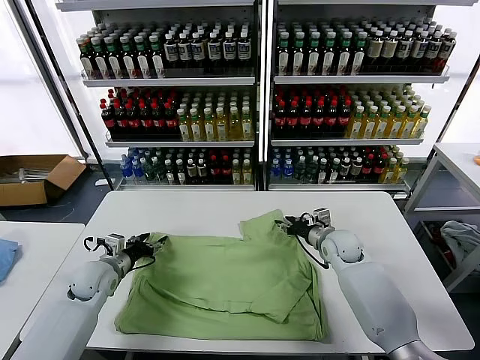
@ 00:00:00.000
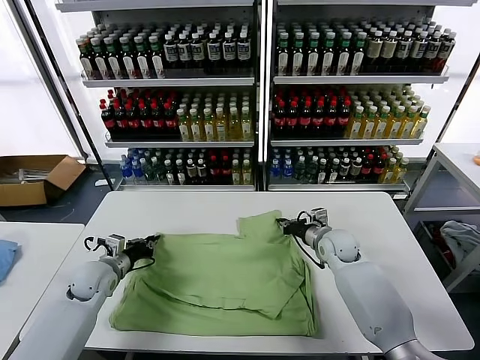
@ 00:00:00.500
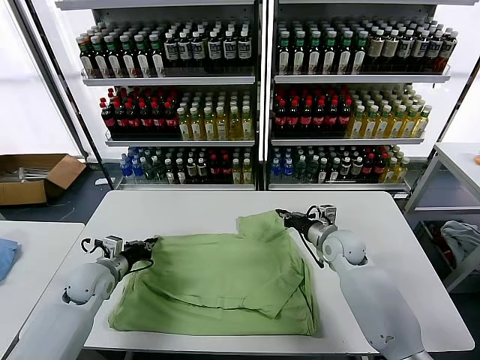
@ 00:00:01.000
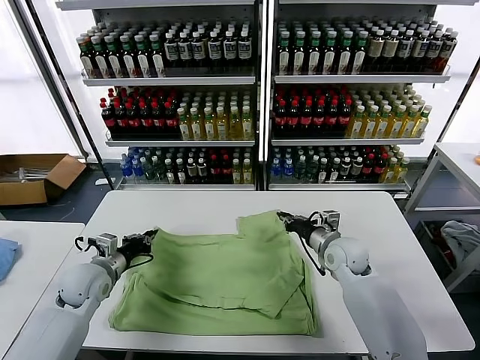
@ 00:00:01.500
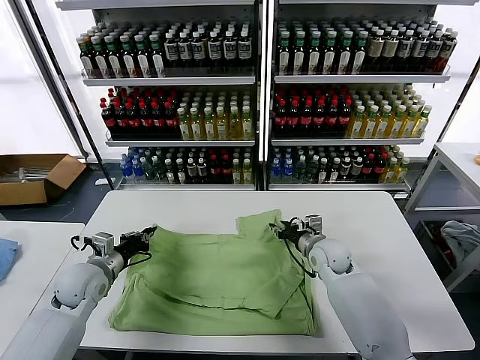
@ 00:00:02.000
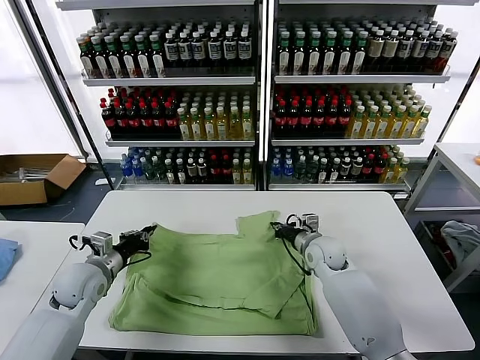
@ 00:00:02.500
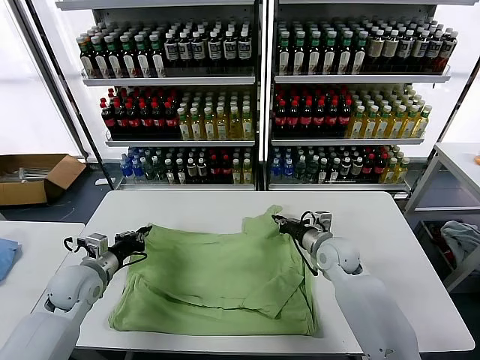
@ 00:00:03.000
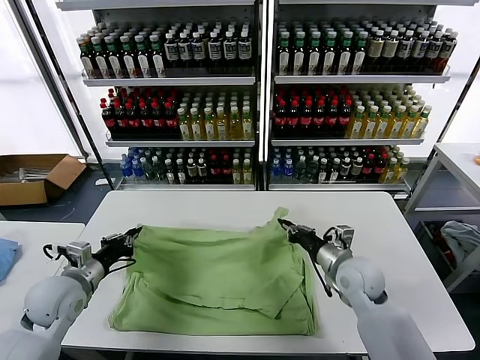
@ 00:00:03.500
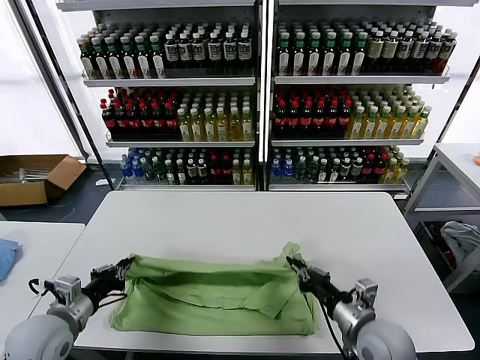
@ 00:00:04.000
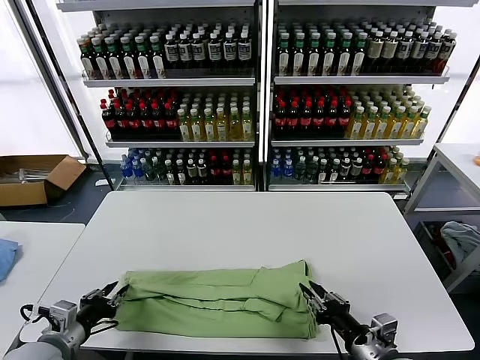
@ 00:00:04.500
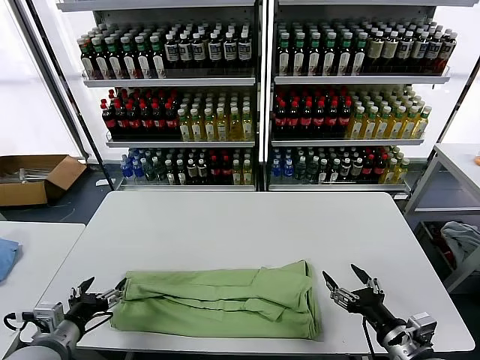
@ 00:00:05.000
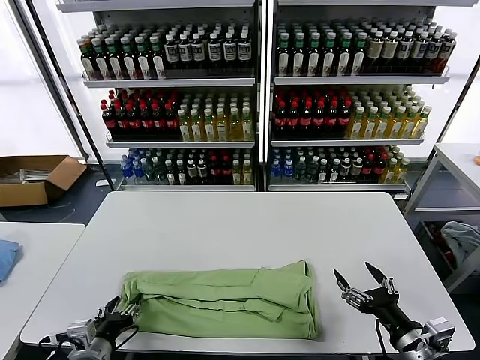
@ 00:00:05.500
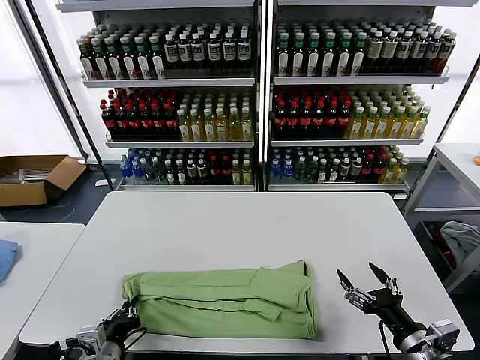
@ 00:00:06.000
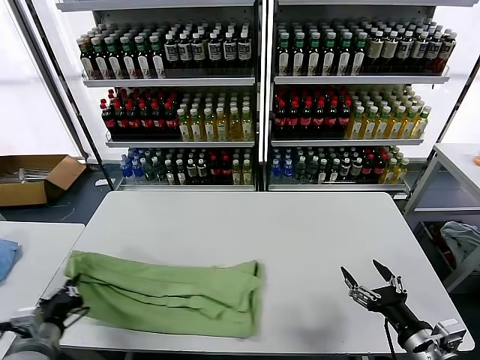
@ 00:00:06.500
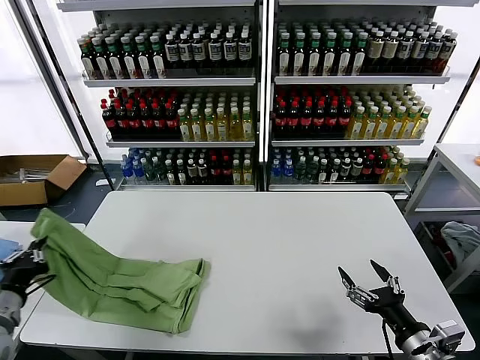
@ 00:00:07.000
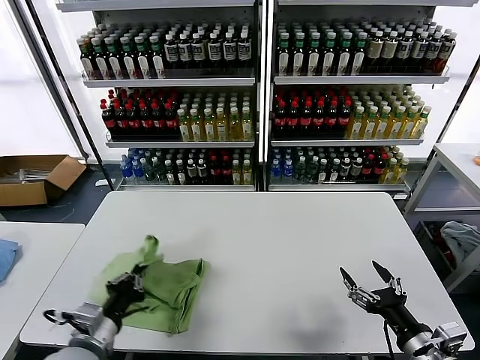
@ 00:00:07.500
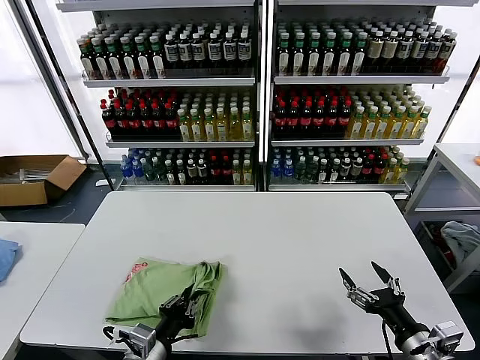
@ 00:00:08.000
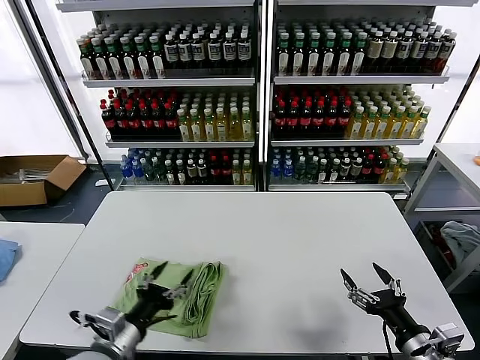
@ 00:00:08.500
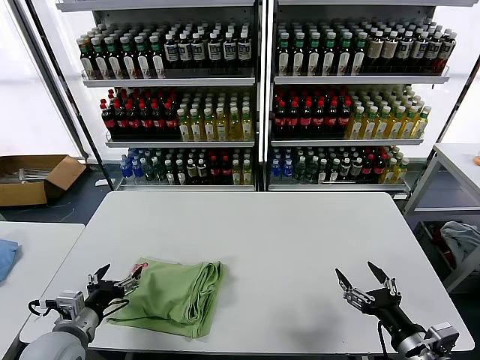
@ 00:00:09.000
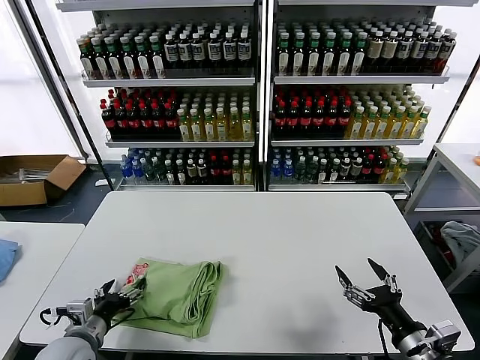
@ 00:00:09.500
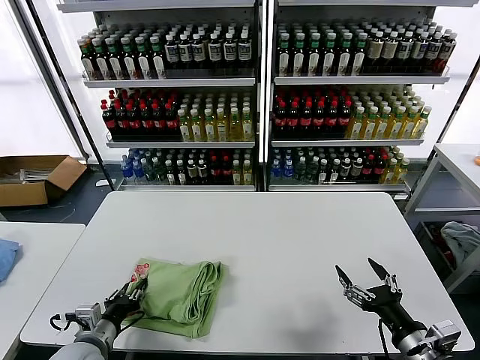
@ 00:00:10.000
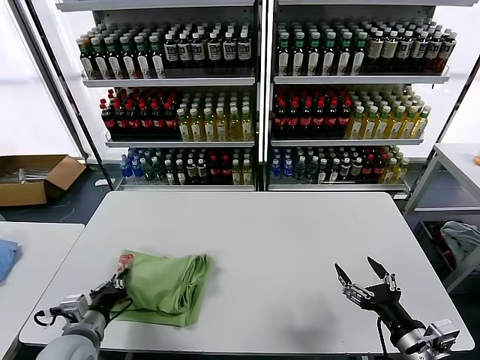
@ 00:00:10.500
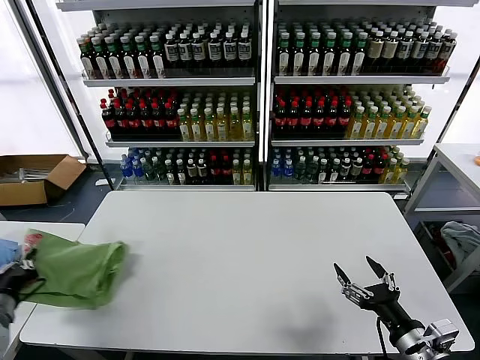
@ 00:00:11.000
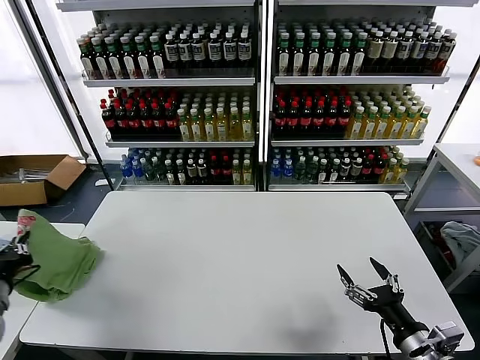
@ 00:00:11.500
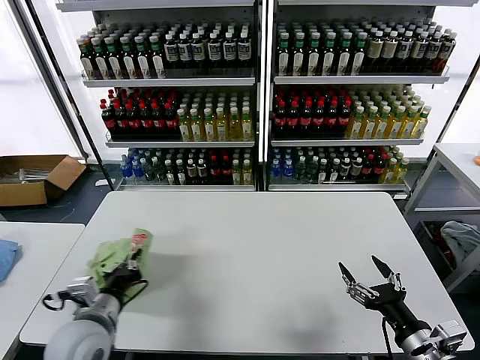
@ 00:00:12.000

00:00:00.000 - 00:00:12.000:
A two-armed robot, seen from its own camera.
Task of the whole recording: fold and organize the clothes.
Step, 00:00:00.000 - 00:00:02.000: use both grippers simultaneously to clamp the upper edge of the clothing fabric.
Step, 00:00:02.500 - 00:00:04.500: use both grippers to drag the upper edge of the fabric backward and fold it over the lower edge.
Step, 00:00:05.000 - 00:00:06.000: use the left gripper to clamp the left edge of the fabric.
Step, 00:00:06.500 - 00:00:08.000: use the left gripper to drag the left edge of the fabric to the left and folds it over the right edge.
00:00:00.000 - 00:00:02.000: The left gripper moves about 5 cm, and closes. Meanwhile the right gripper shifts by approximately 5 cm, and closes and opens again.
00:00:02.000 - 00:00:04.000: The left gripper goes approximately 10 cm backward. The right gripper heads backward, covering about 20 cm, and closes up.
00:00:04.000 - 00:00:06.000: The right gripper travels backward and to the right by about 10 cm, and opens up; the left gripper travels to the right, backward and downward by roughly 15 cm, and opens, then closes once more.
00:00:06.000 - 00:00:08.000: The left gripper travels to the left and back again, roughly 15 cm each way.
00:00:08.000 - 00:00:10.000: The left gripper heads to the left, covering roughly 10 cm, and opens, then closes again.
00:00:10.000 - 00:00:12.000: The left gripper is displaced upward by about 10 cm, reaches some 15 cm to the left, then returns, and closes its fingers.

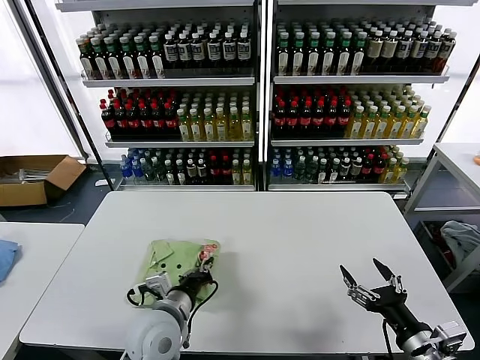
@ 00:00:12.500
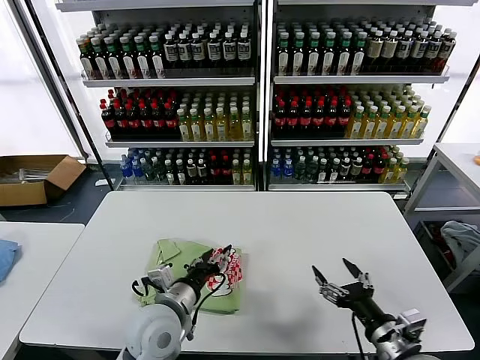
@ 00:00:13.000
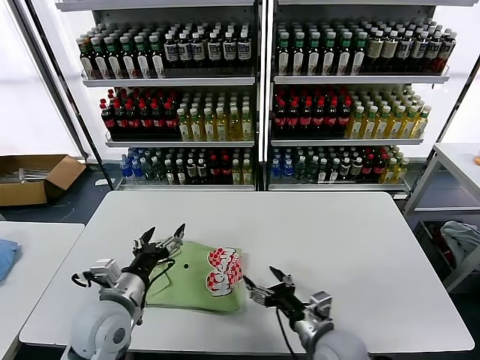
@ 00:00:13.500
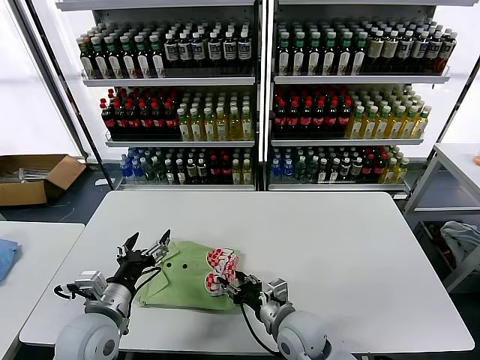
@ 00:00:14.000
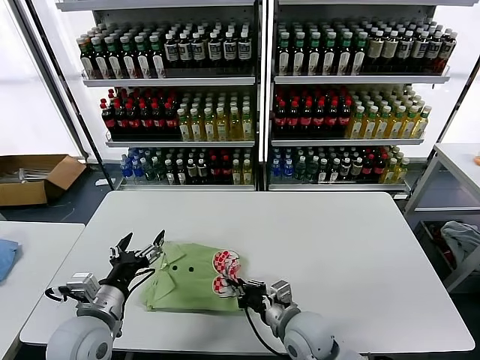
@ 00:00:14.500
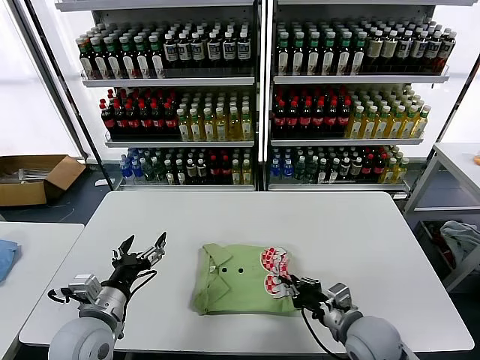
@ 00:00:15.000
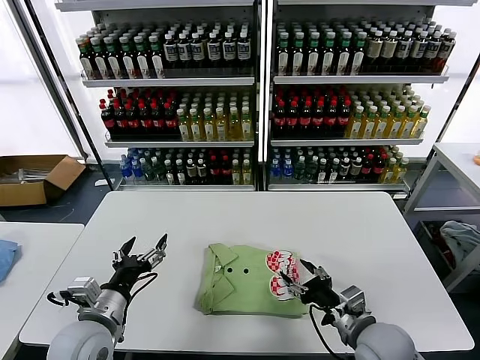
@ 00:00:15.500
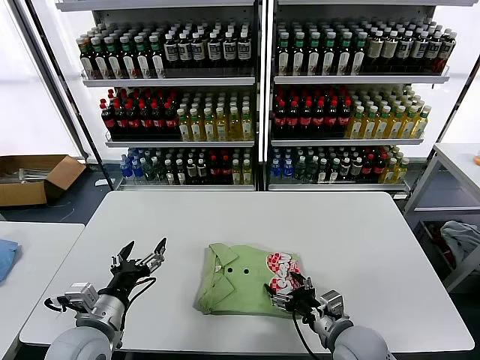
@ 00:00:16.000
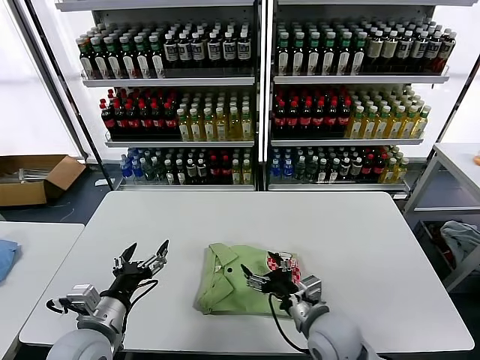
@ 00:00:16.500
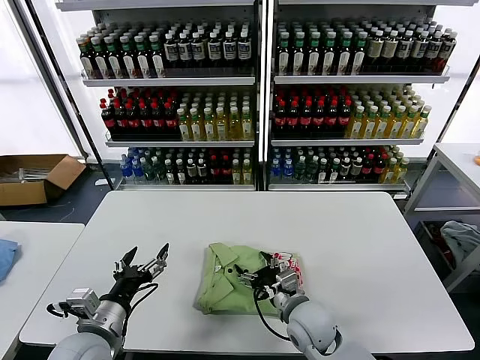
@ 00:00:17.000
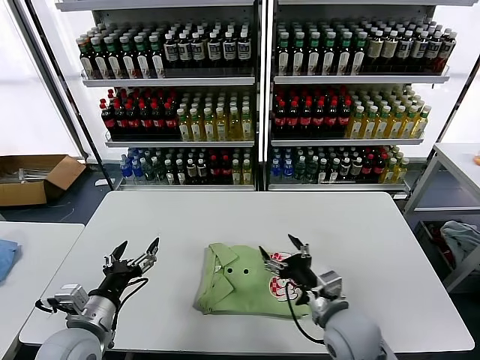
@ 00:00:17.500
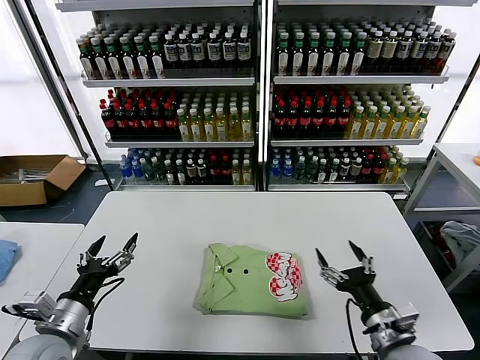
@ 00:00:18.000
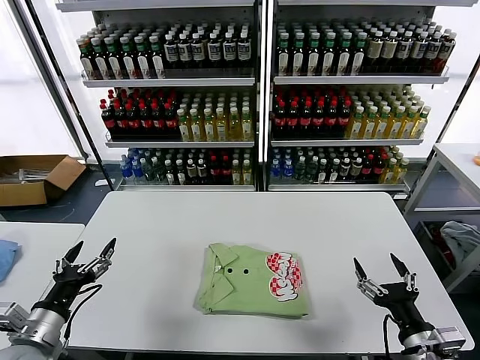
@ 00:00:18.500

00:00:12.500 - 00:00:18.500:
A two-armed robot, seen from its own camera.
Task of the whole recording: fold and organize the clothes.
Step, 00:00:13.000 - 00:00:17.000: Drag the clothes to the center of the table.
00:00:12.500 - 00:00:14.500: The left gripper travels to the left by some 10 cm, and opens; the right gripper goes about 25 cm to the left and forward, and closes up.
00:00:14.500 - 00:00:16.500: The right gripper shifts about 5 cm to the right, and opens up.
00:00:16.500 - 00:00:18.500: The left gripper goes approximately 10 cm to the left, while the right gripper shifts some 20 cm to the right and backward.
